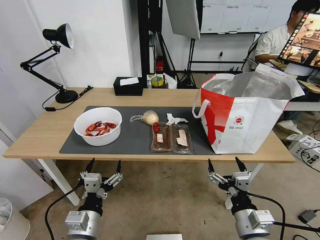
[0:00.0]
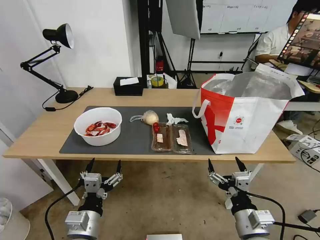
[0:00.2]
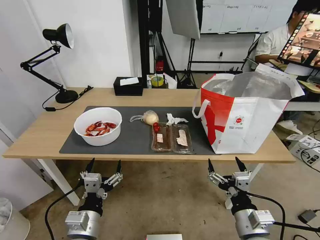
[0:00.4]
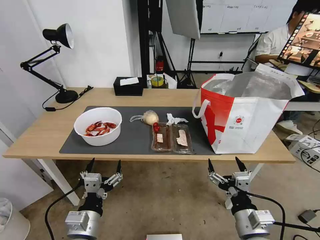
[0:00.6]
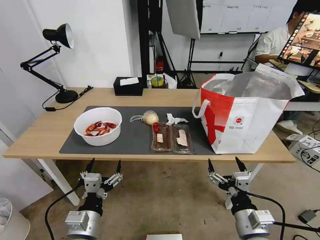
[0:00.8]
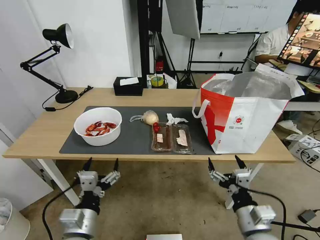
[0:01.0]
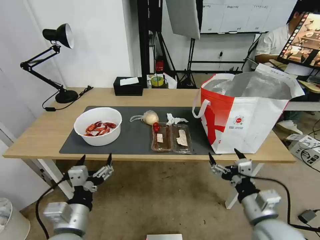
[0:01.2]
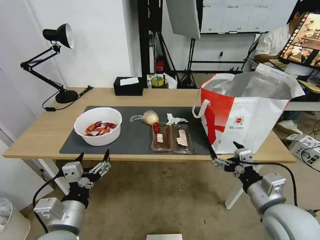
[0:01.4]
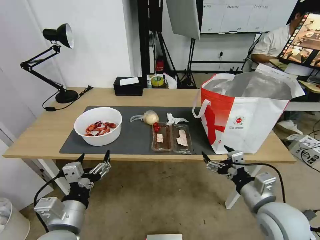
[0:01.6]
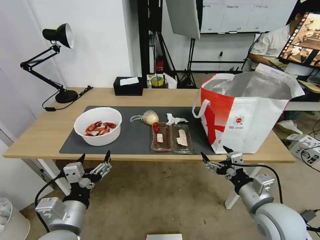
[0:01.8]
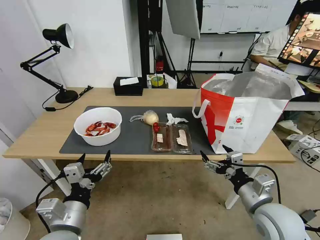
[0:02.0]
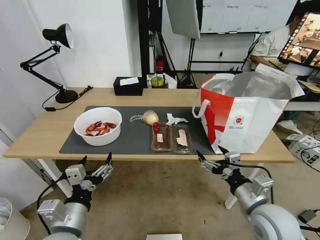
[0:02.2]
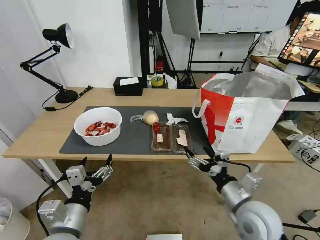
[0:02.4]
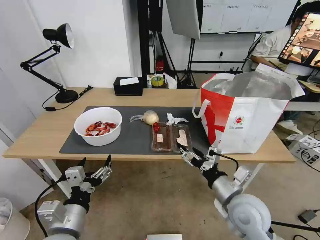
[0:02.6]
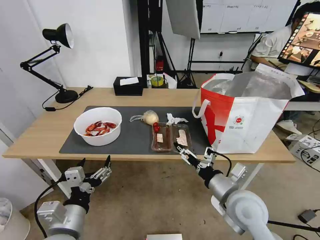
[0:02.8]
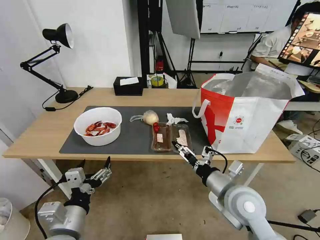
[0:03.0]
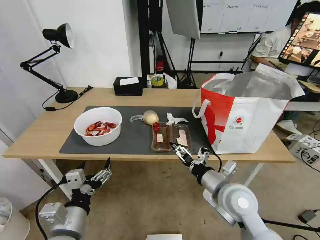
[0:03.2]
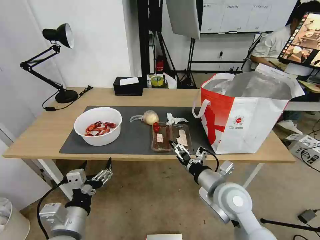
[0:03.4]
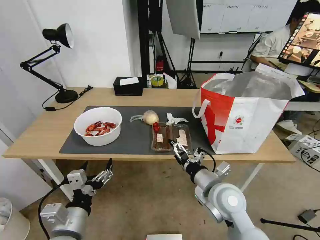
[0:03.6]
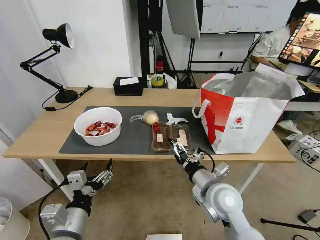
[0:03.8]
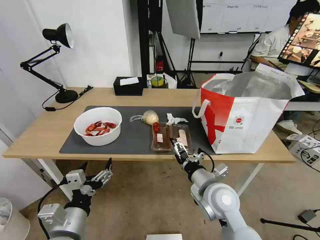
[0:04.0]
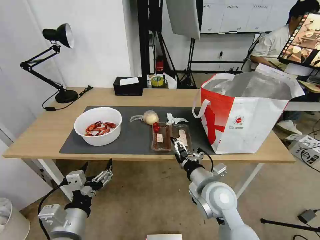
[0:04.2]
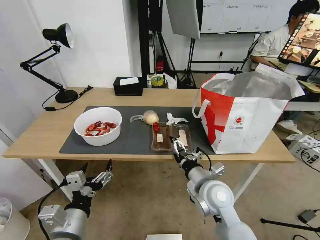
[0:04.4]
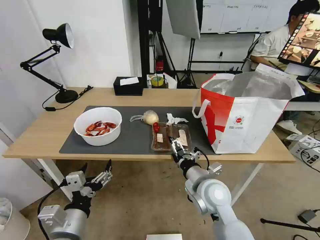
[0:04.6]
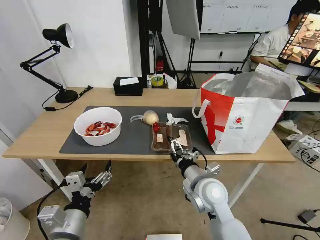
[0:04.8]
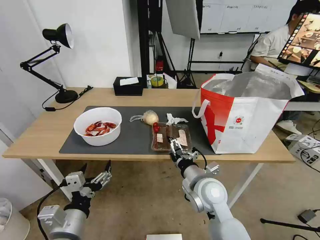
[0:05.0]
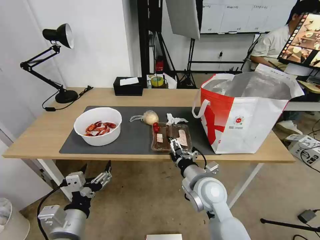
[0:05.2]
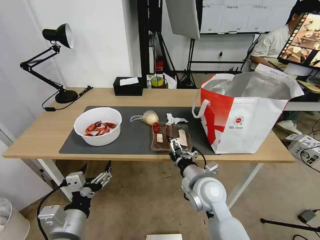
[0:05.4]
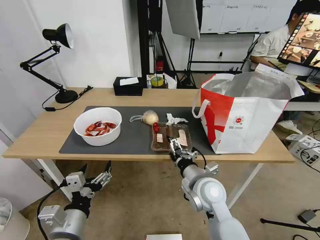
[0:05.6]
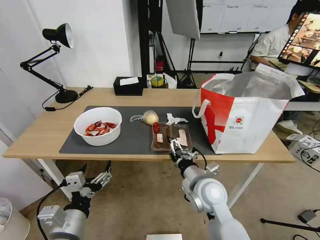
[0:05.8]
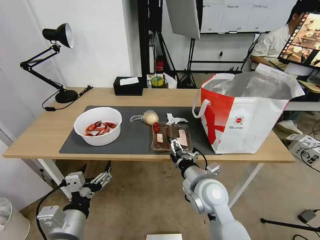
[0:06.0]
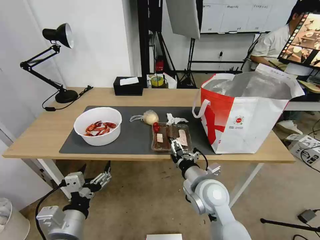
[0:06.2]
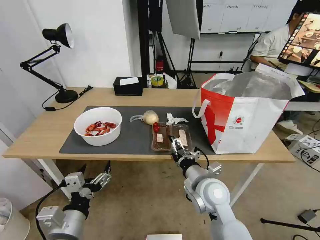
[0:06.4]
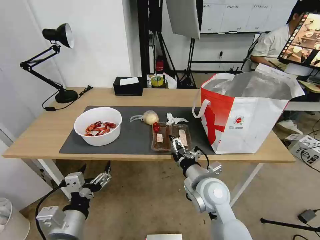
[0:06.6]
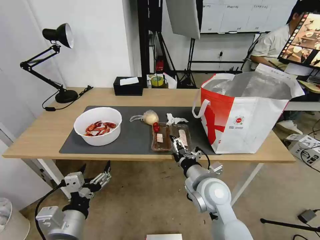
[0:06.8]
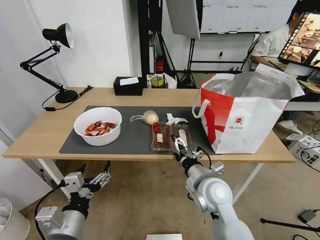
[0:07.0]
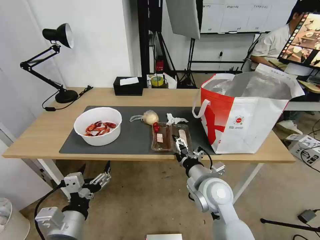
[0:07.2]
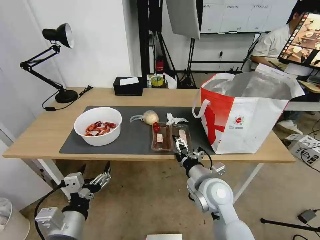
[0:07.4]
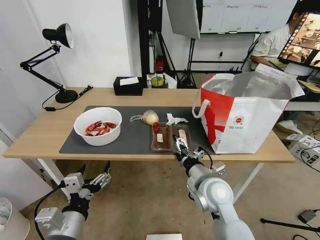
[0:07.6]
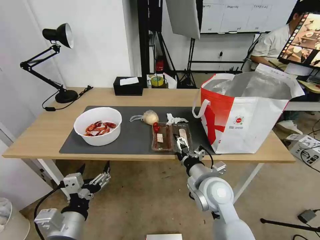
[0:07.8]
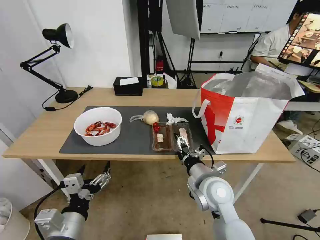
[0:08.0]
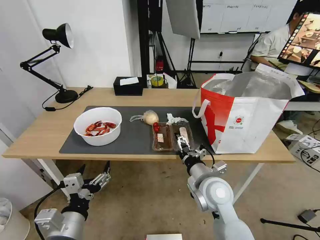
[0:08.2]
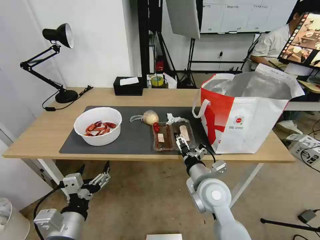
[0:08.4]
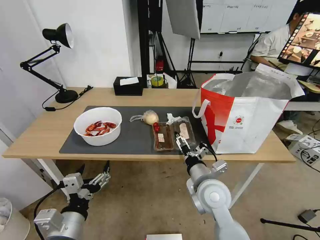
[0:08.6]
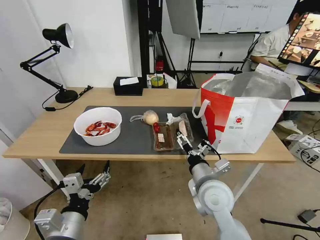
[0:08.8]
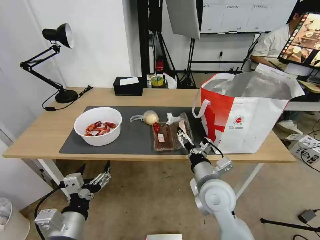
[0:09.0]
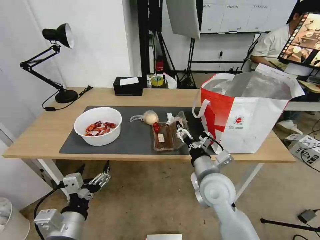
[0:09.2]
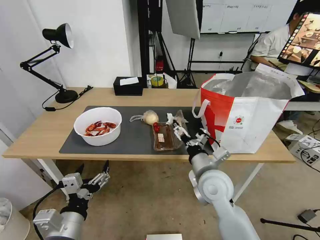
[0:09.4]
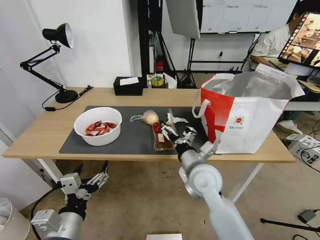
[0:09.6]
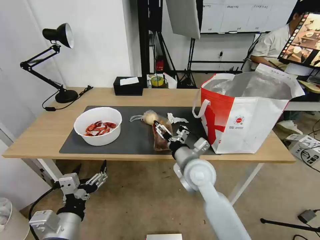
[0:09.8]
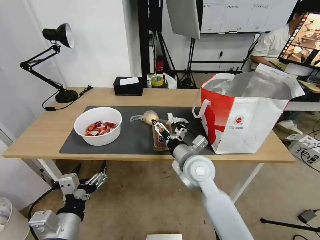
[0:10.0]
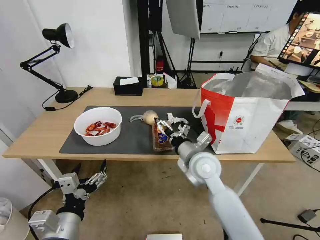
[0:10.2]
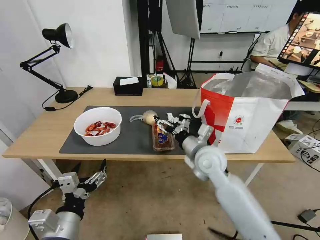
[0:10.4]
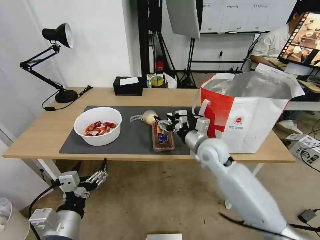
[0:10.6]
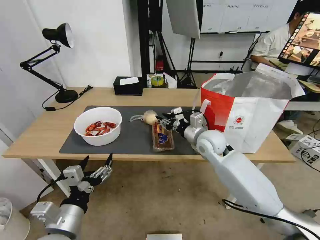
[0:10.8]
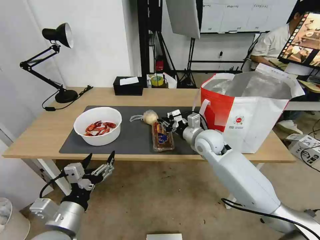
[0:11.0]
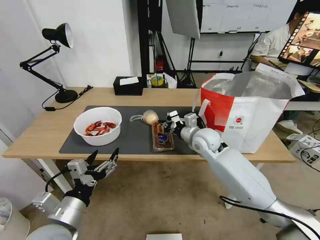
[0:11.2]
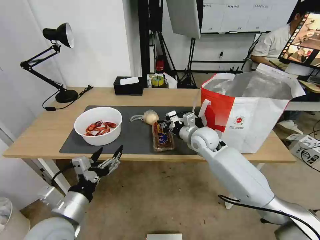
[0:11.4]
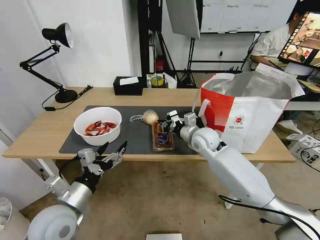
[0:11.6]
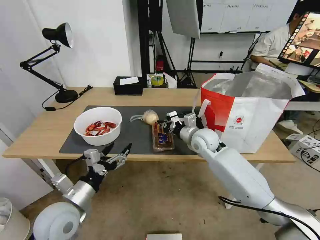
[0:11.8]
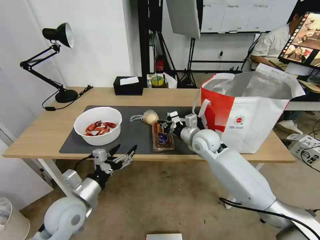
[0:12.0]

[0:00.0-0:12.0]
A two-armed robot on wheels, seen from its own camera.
Task of the whole recording: Pick up the trash from the table and place it into the takeout bag.
0:01.6 to 0:03.0: The right gripper shifts some 5 cm to the left.
0:03.0 to 0:04.4: The right gripper is displaced to the left by some 5 cm.
0:04.4 to 0:06.0: The grippers move only a little.
0:06.0 to 0:07.6: The two grippers keep their place.
0:09.0 to 0:10.4: The right gripper moves forward, approximately 10 cm.
0:10.4 to 0:12.0: The two grippers go about 10 cm forward. The right gripper closes up.

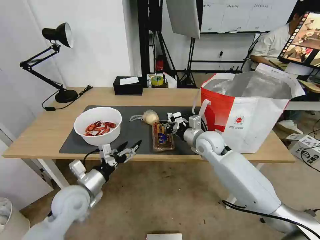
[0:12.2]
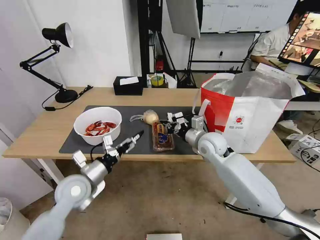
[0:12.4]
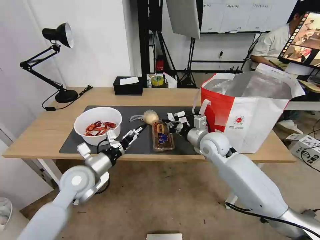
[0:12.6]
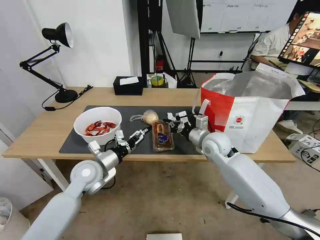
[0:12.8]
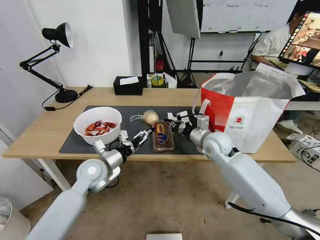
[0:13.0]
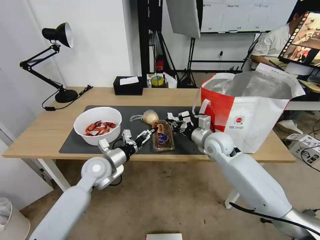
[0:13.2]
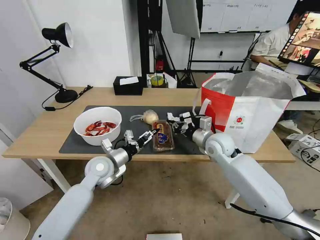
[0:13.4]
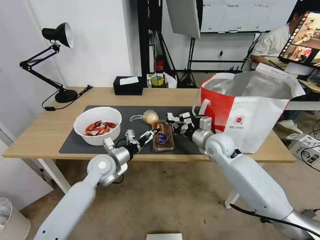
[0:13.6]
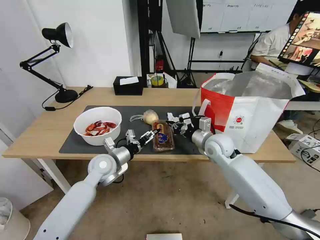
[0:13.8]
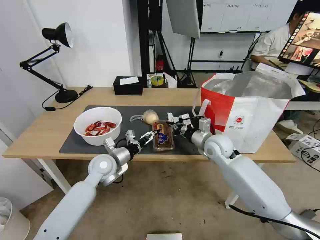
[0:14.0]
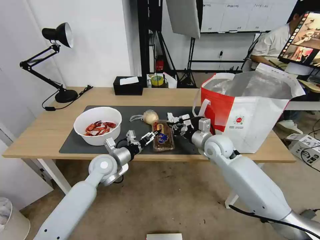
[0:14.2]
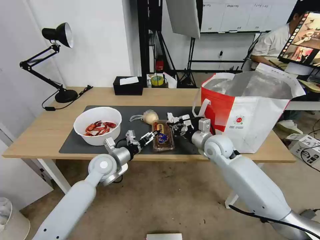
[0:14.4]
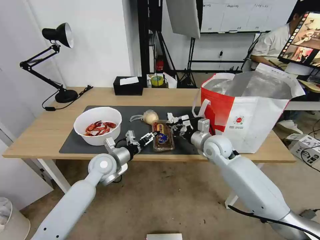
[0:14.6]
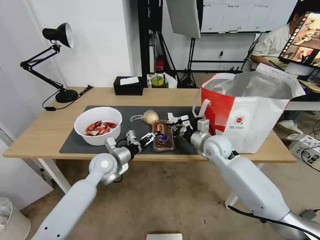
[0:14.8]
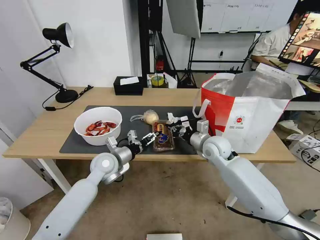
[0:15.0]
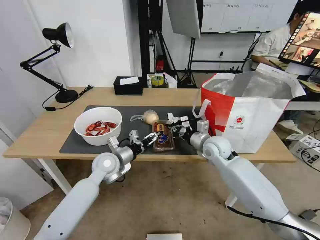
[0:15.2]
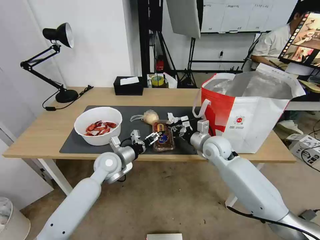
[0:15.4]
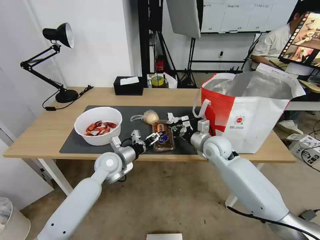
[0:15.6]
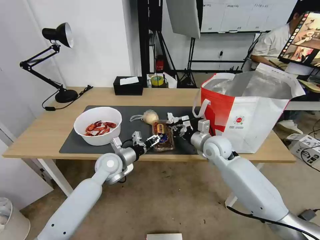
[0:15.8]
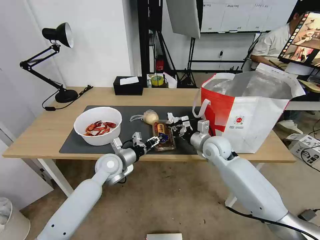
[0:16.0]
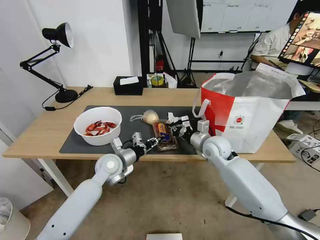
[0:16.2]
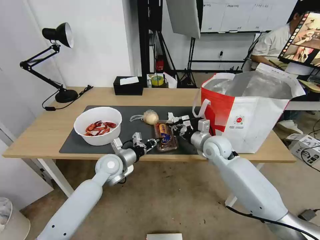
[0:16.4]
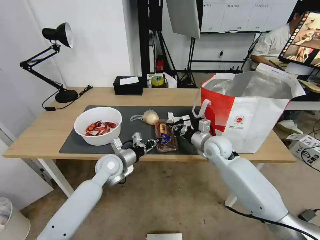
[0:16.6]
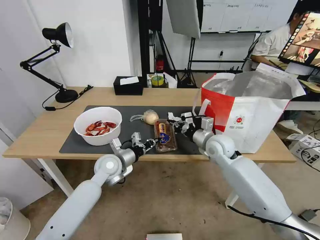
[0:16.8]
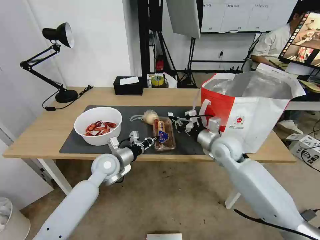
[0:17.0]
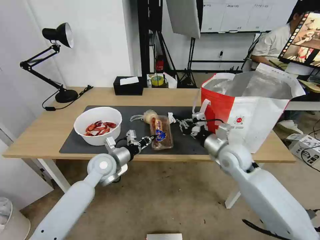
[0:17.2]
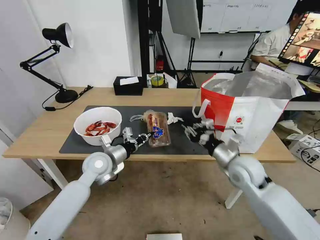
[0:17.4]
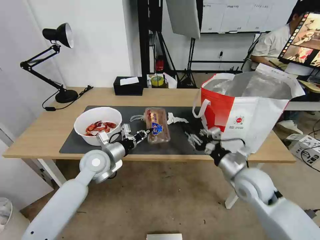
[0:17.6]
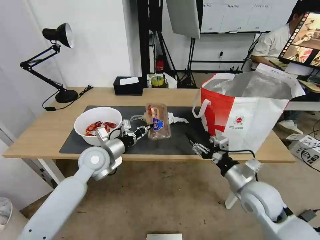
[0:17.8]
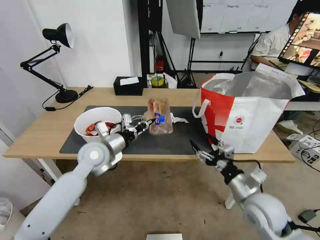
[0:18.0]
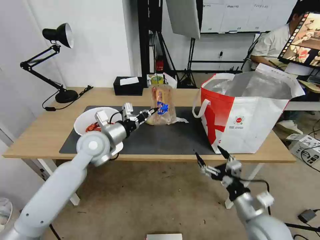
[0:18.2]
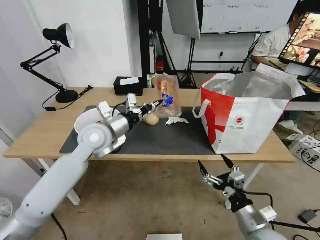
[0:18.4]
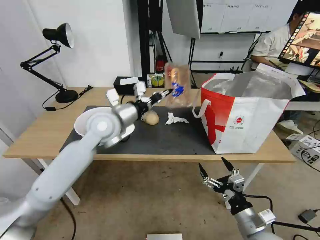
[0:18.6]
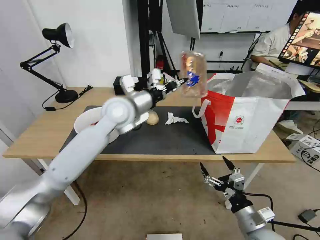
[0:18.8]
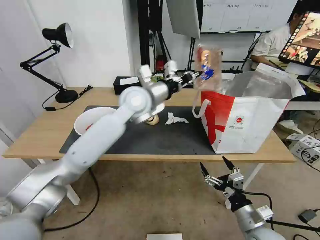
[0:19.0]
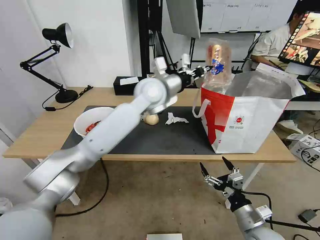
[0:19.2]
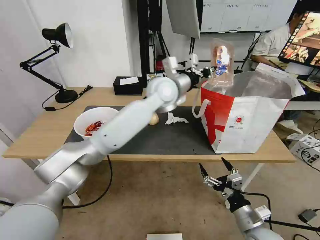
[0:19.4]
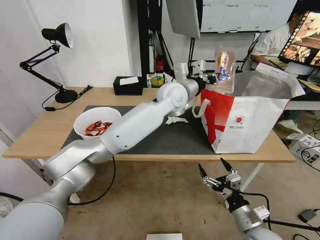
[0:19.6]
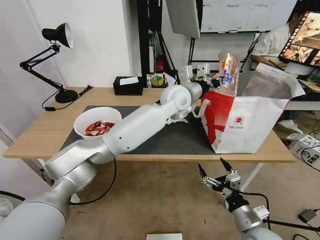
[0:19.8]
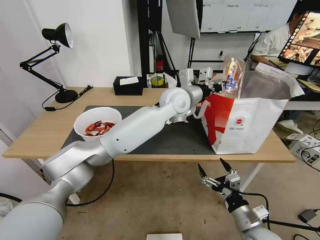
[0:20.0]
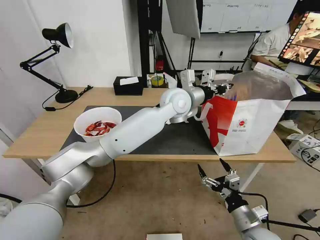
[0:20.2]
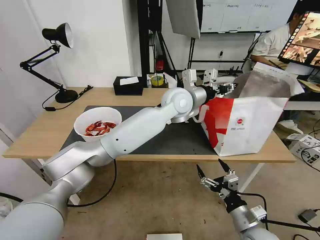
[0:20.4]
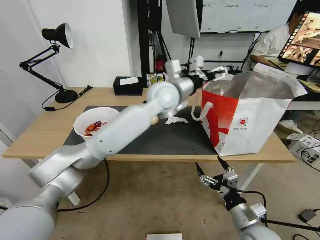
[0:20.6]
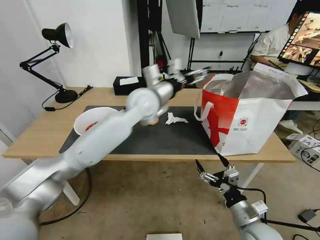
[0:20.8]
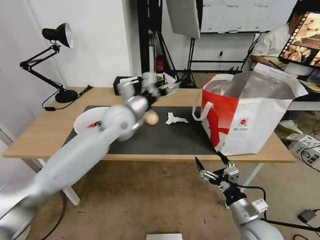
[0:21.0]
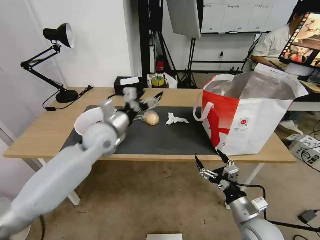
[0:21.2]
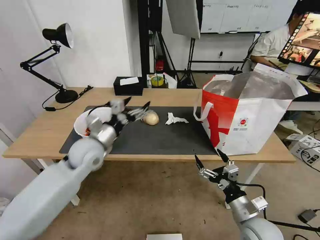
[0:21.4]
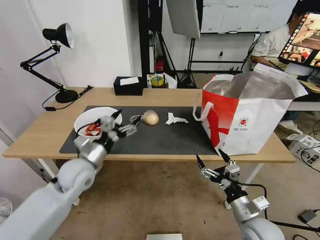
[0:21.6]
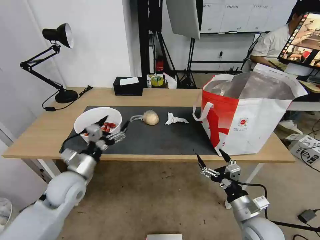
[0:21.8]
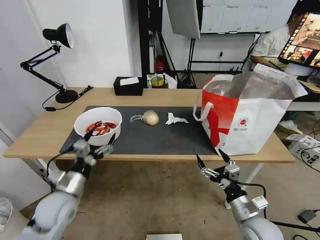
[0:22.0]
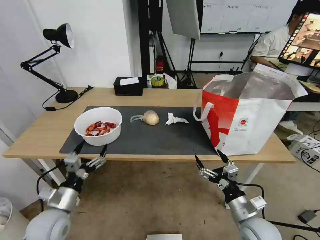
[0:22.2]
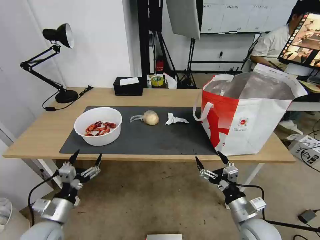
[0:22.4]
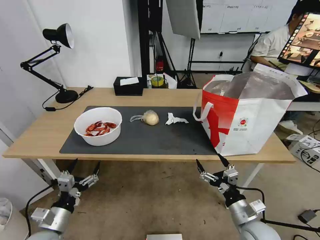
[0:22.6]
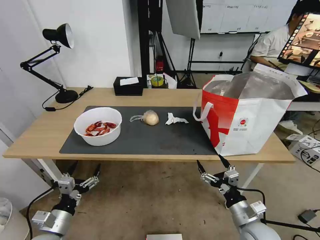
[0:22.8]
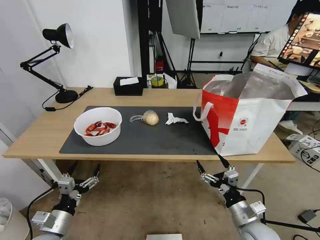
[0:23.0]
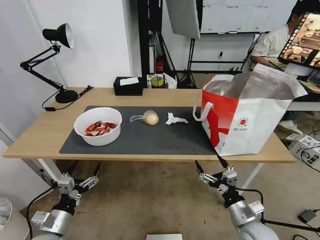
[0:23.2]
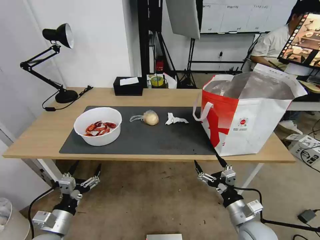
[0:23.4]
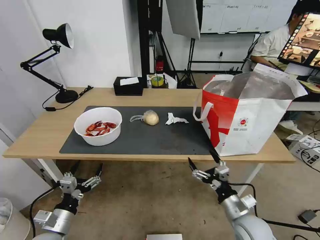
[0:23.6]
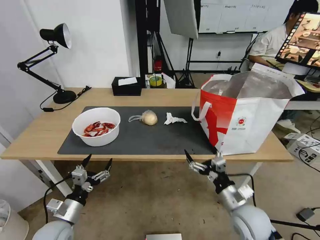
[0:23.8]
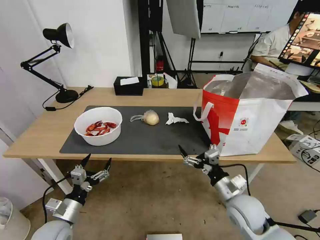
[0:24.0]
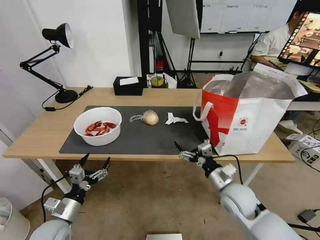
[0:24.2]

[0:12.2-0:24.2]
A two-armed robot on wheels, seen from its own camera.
Task of the whole recording: Pick up the trash from the table and place it into the takeout bag.
0:12.2 to 0:13.8: The left gripper goes approximately 15 cm forward and to the right.
0:13.8 to 0:15.2: Neither gripper changes place.
0:15.2 to 0:16.6: The left gripper closes.
0:16.6 to 0:18.2: The right gripper shifts about 25 cm backward, and opens. The left gripper is displaced upward by some 10 cm.
0:18.2 to 0:19.8: The left gripper shifts roughly 25 cm to the right and forward.
0:19.8 to 0:21.2: The left gripper goes roughly 25 cm to the left and backward, and opens its fingers.
0:21.2 to 0:22.6: The left gripper travels backward, downward and to the left by approximately 35 cm.
0:22.6 to 0:24.2: The right gripper is displaced forward by roughly 10 cm.
